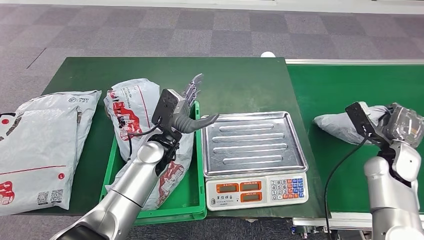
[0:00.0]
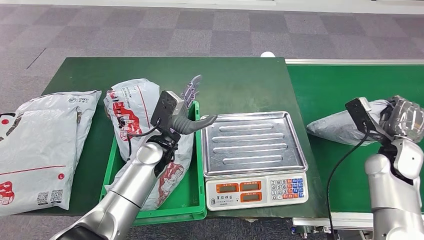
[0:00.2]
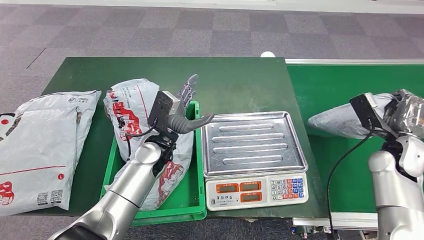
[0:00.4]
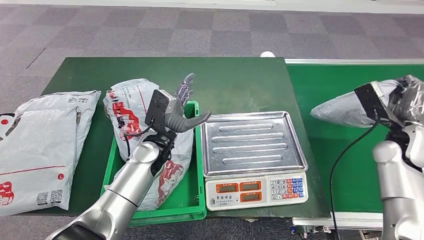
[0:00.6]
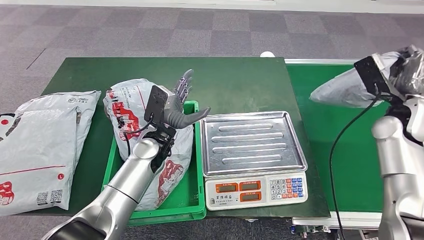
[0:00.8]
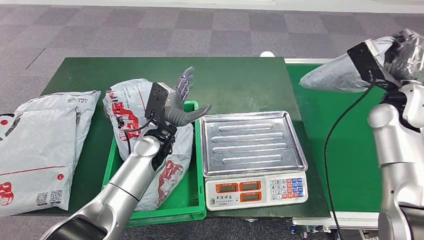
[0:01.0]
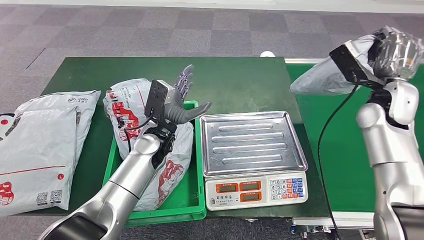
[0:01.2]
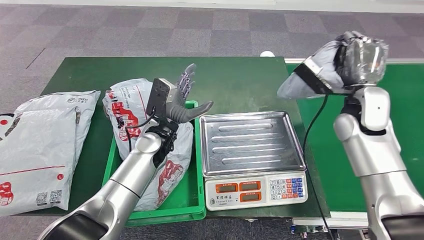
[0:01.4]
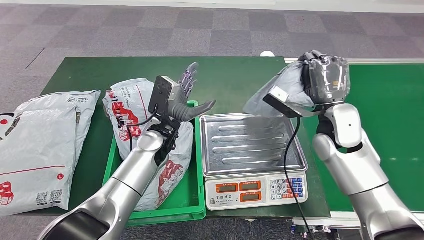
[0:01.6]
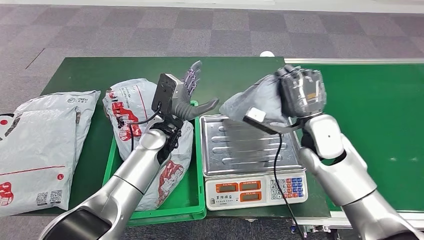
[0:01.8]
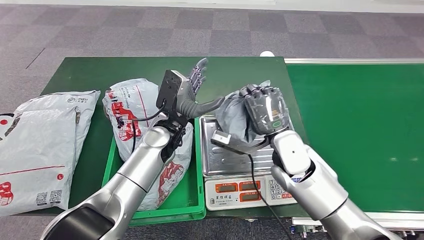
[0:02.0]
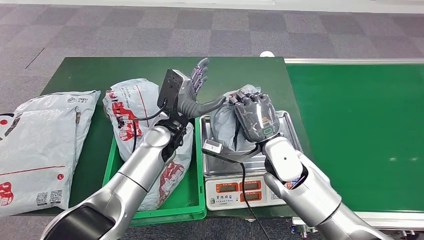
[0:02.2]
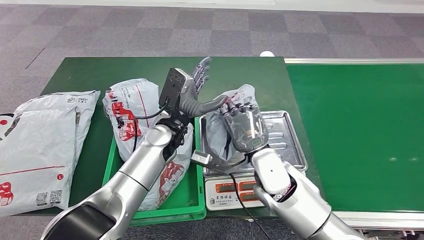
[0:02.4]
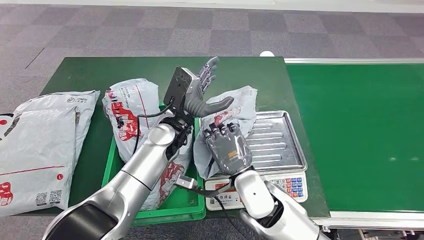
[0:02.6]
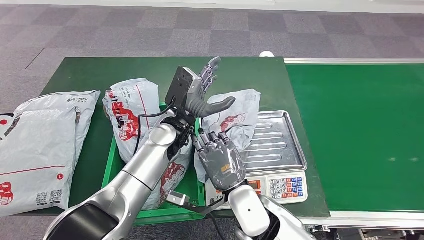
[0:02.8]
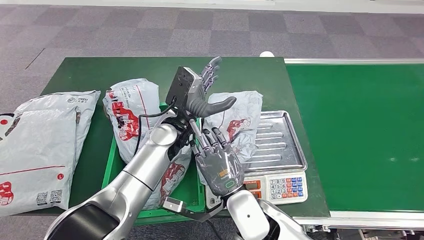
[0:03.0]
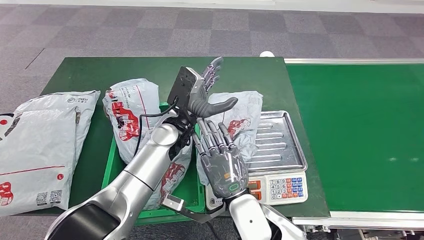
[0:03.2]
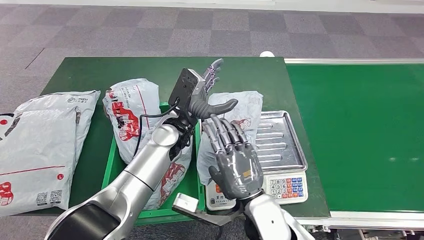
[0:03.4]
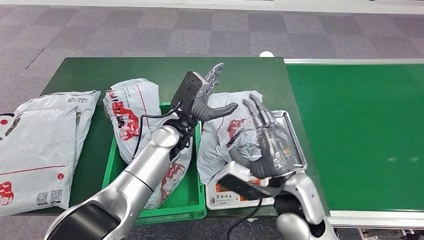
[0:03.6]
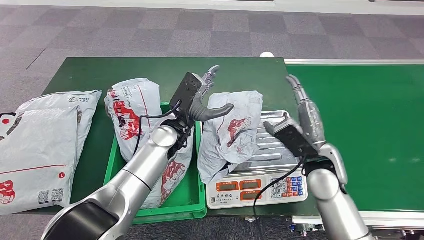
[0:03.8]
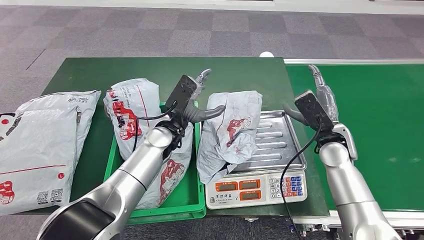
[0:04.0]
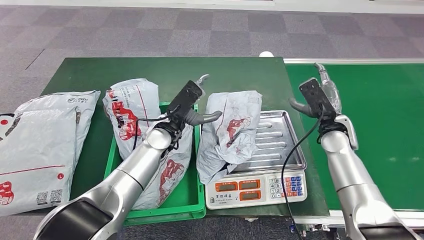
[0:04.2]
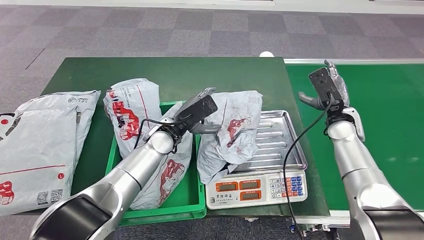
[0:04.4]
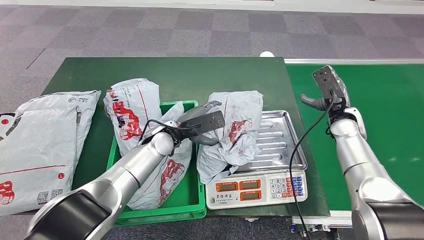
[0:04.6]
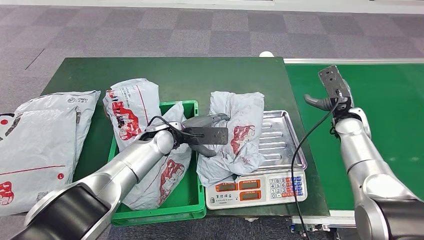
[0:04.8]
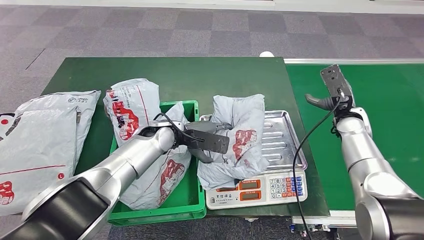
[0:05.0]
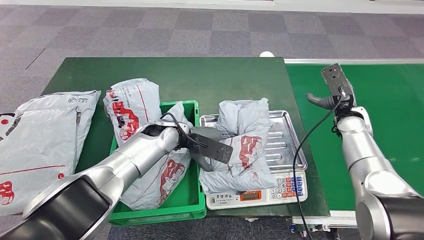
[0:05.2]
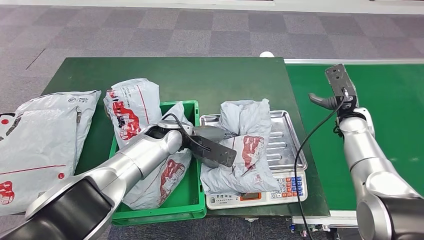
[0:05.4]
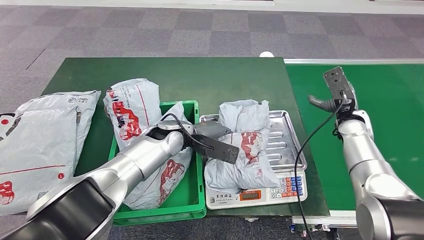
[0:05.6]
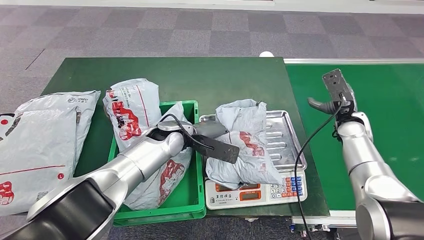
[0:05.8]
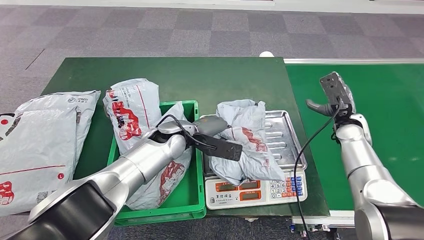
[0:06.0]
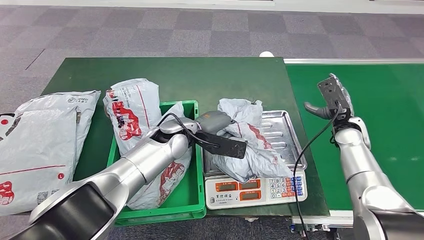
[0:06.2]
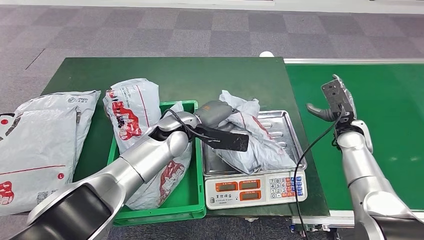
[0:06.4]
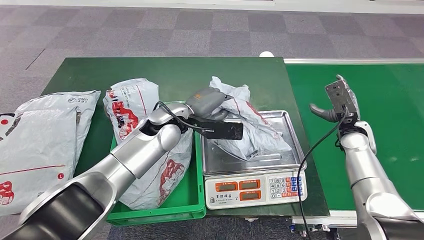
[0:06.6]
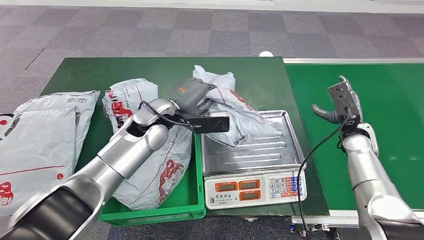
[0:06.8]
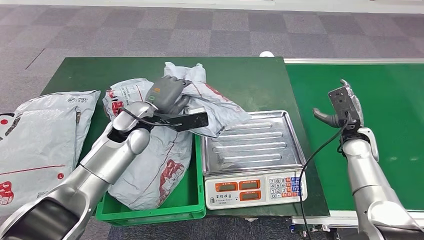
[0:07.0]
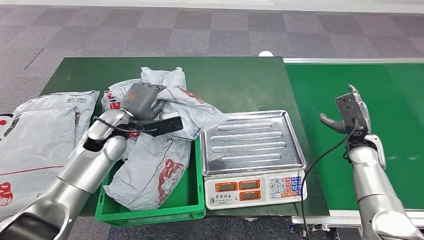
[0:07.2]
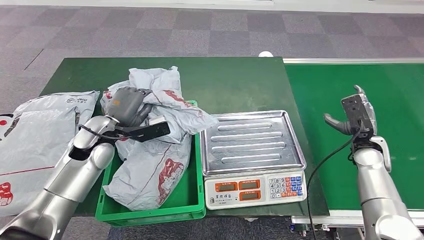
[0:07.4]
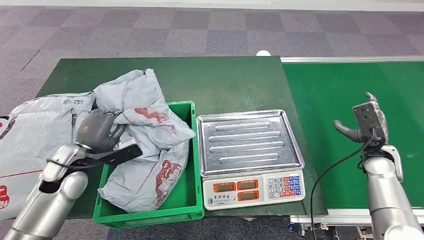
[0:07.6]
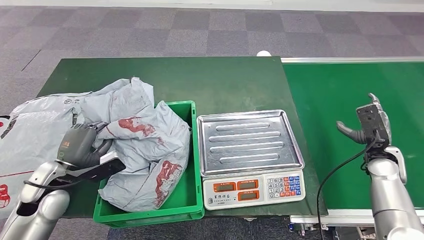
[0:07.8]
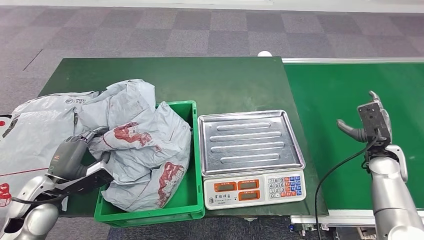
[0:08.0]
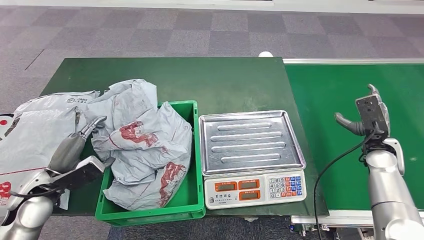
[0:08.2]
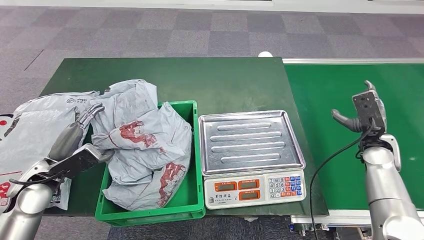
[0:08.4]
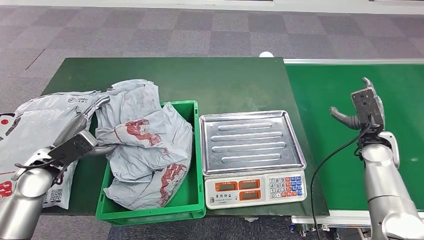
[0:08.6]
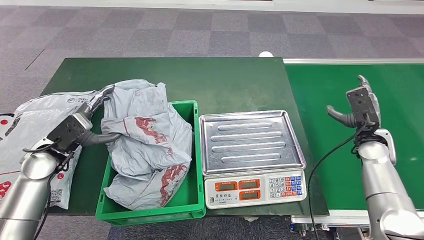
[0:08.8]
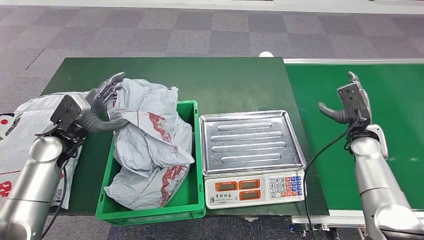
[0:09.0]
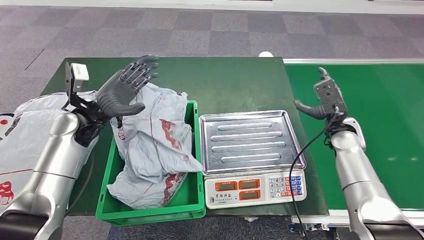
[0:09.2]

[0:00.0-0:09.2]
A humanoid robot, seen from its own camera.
Step, 0:01.0 to 0:03.2: Place the parcel onto the inbound machine.
Step, 0:05.6 to 0:07.2: Pick up the parcel from the inbound machine.
Step, 0:07.4 to 0:09.2: Place the parcel into the delivery box.

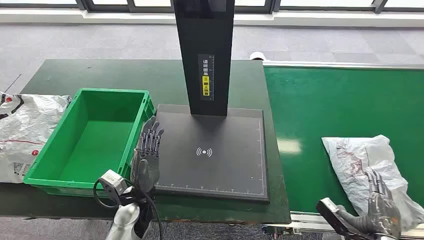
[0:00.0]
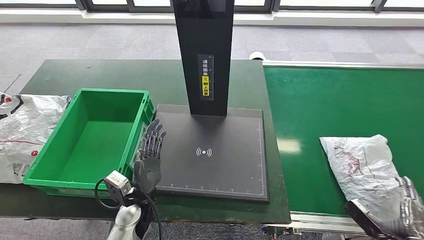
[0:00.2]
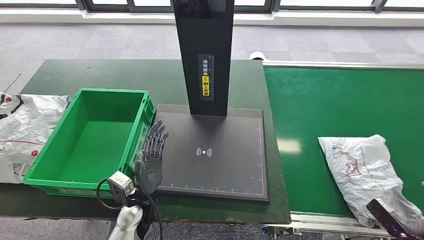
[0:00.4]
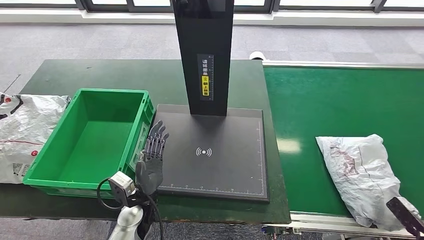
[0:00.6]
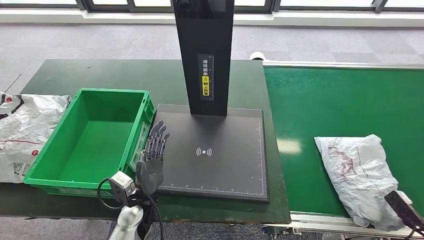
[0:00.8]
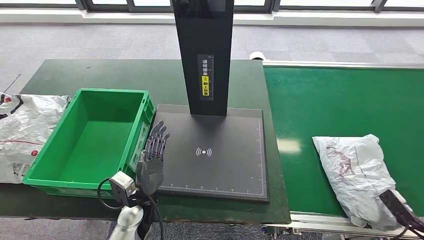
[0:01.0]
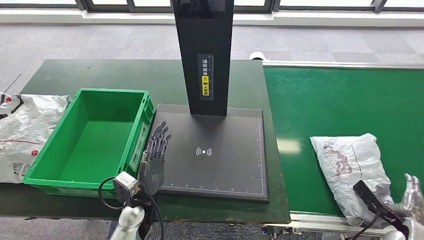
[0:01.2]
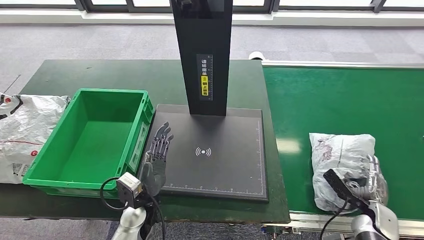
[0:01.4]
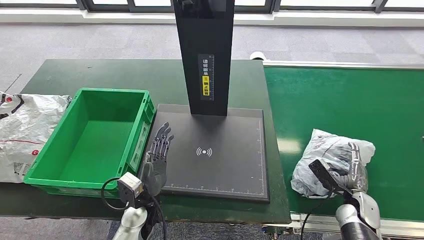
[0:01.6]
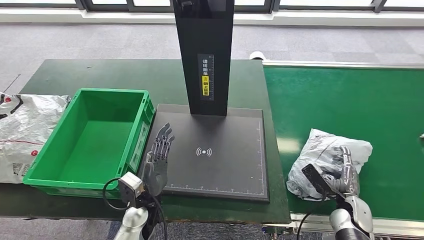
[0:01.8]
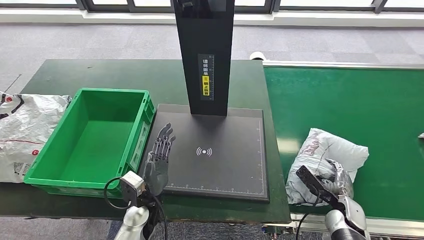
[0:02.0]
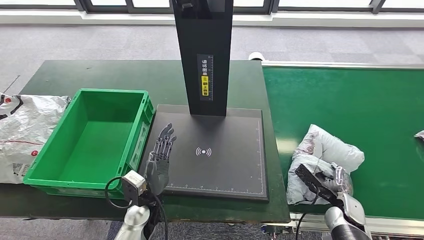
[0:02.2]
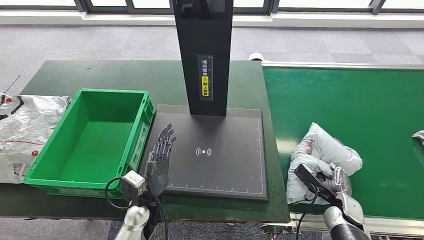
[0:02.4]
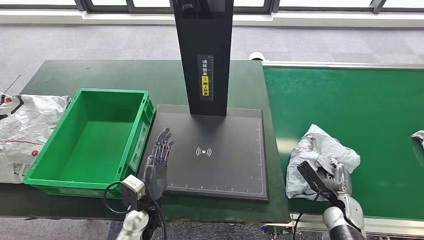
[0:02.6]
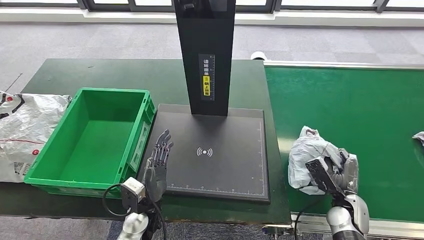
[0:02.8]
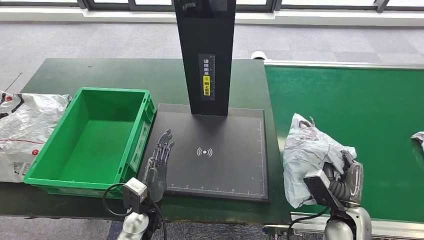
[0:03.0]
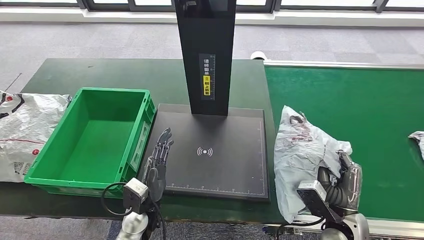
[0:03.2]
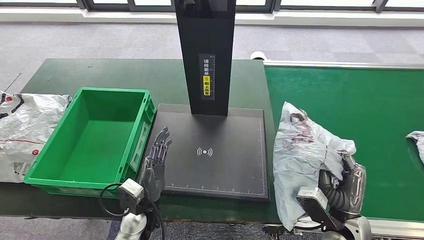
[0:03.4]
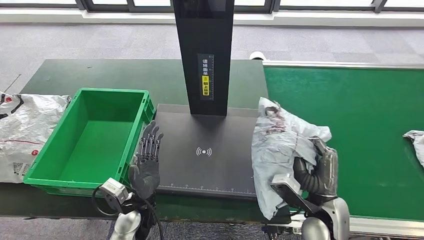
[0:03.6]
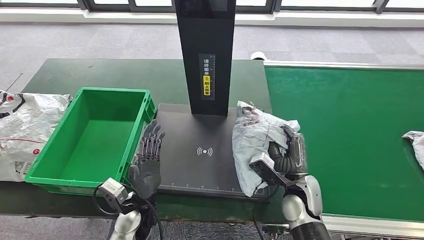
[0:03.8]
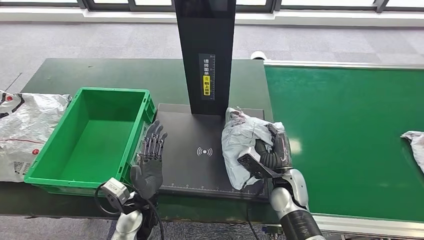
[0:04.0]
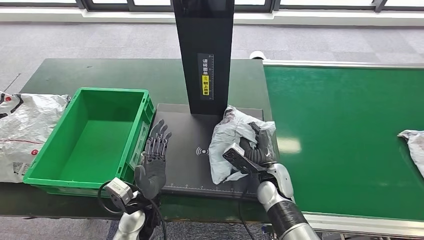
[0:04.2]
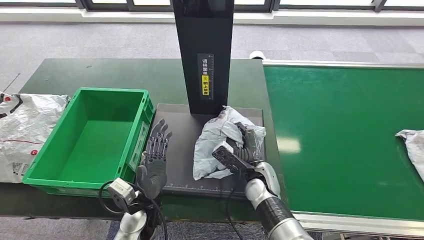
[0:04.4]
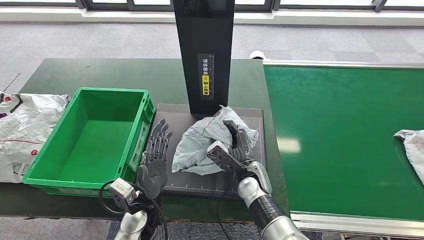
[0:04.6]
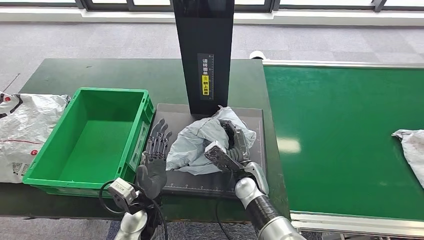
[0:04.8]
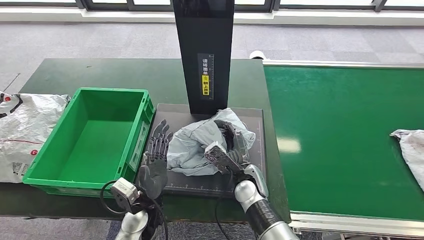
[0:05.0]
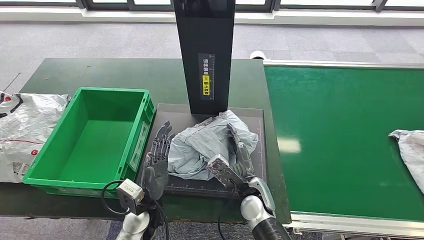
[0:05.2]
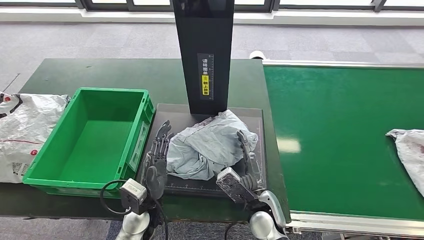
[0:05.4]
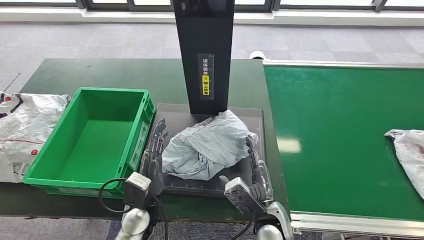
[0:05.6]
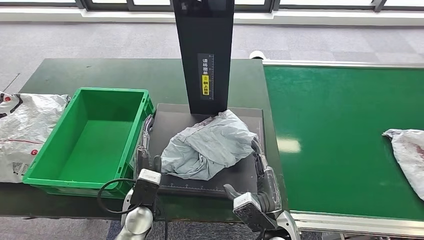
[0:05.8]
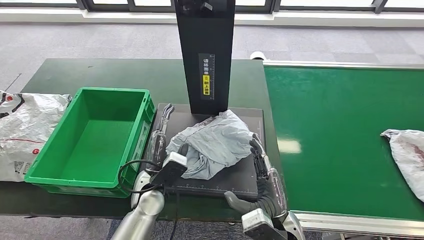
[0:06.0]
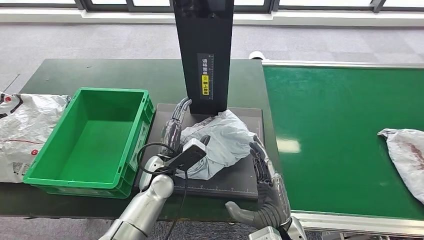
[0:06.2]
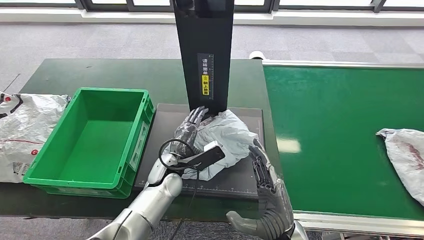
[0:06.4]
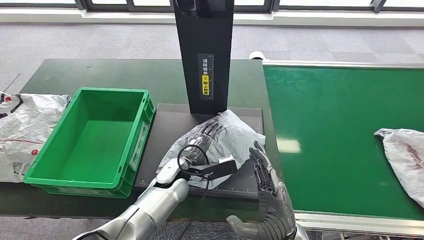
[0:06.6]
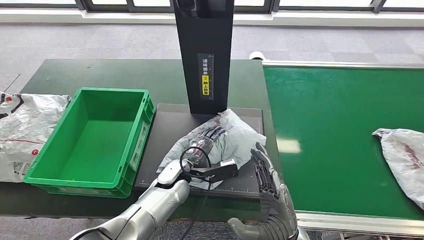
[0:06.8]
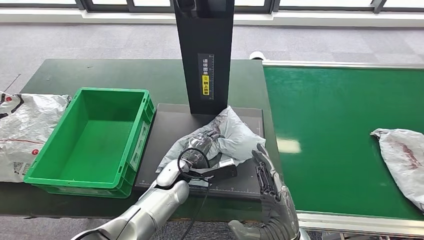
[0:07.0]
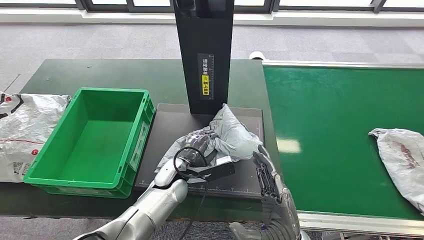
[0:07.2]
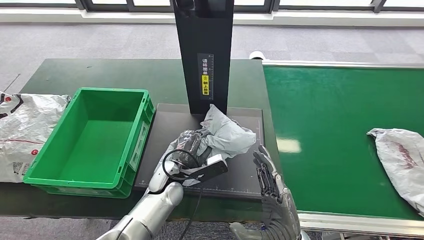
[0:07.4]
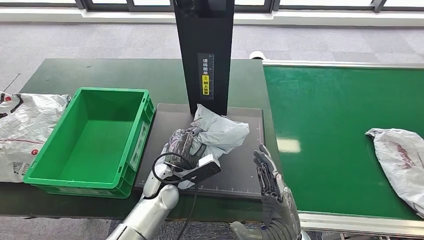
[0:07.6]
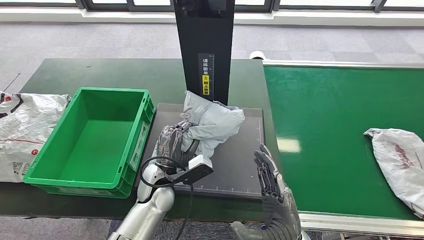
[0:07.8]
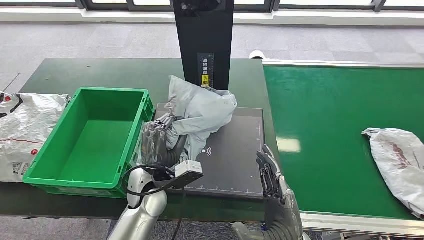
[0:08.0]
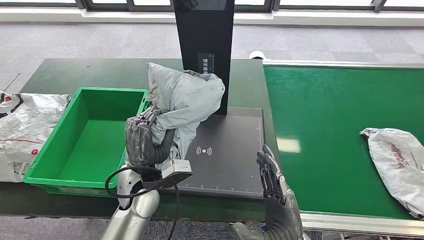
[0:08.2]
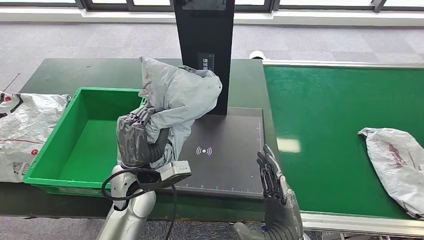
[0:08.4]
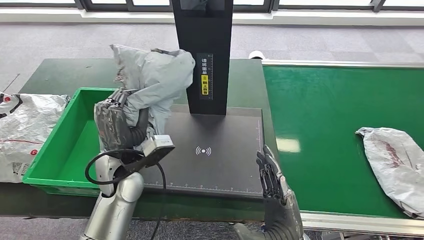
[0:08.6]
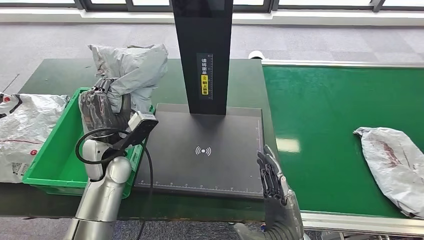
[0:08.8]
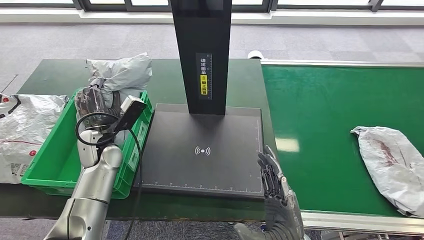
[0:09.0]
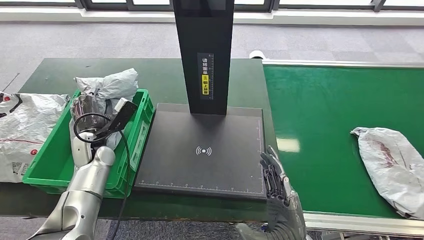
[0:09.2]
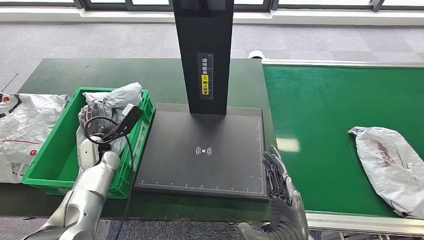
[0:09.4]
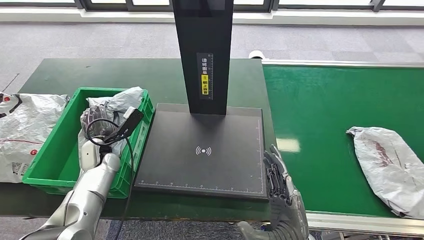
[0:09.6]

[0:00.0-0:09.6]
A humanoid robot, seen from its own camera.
Step, 0:00.0 to 0:03.2: Take the parcel off the conveyor belt.
Step, 0:03.6 to 0:05.8: Place the parcel onto the inbound machine.
Step, 0:06.0 to 0:07.8: Pick up the parcel from the inbound machine.
0:01.6 to 0:03.2: The right hand travels to the left and upward by roughly 10 cm.
0:04.8 to 0:06.4: The right hand goes some 15 cm backward and to the right; the left hand shifts roughly 10 cm forward.
0:06.4 to 0:08.0: The left hand shifts by about 5 cm.
